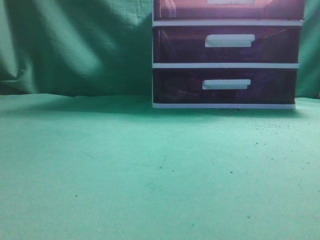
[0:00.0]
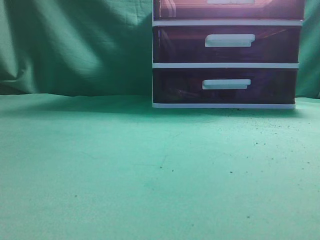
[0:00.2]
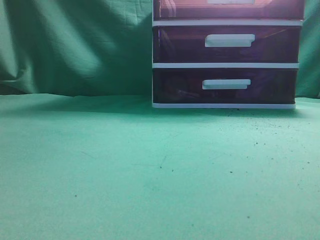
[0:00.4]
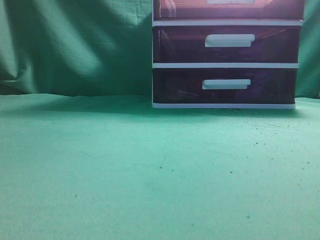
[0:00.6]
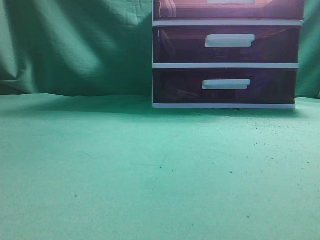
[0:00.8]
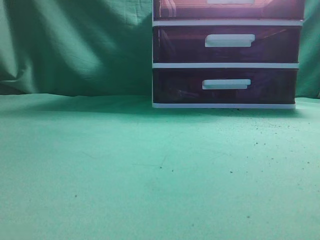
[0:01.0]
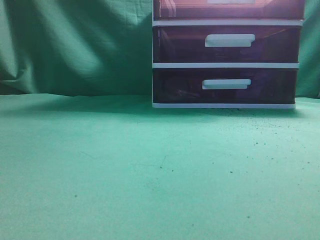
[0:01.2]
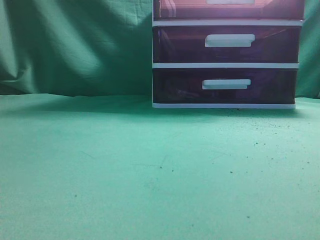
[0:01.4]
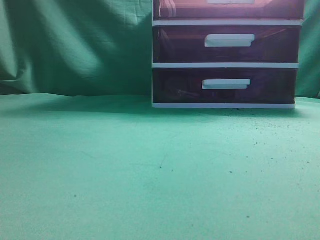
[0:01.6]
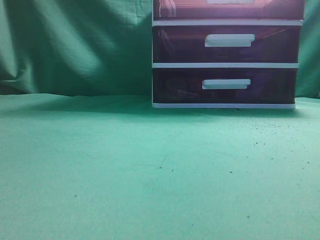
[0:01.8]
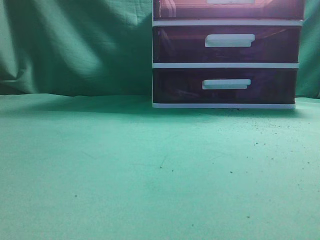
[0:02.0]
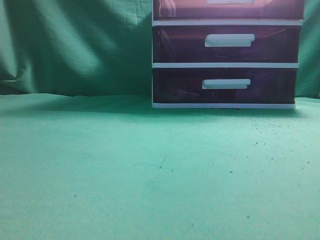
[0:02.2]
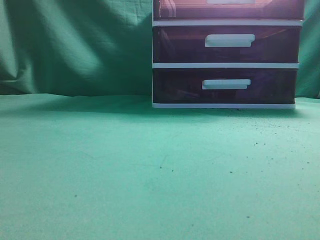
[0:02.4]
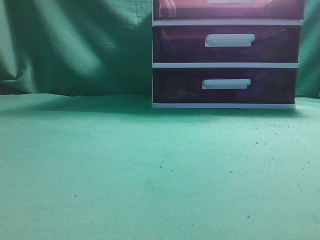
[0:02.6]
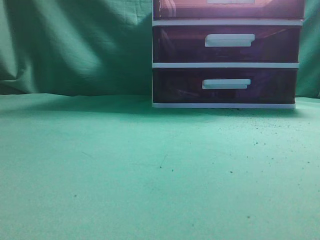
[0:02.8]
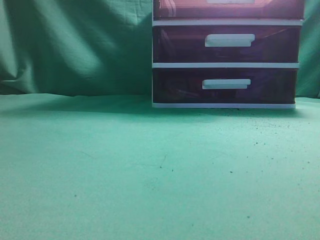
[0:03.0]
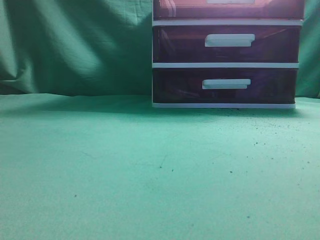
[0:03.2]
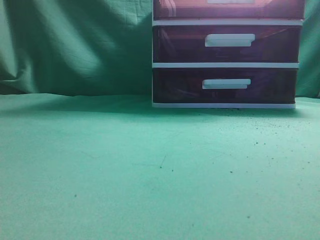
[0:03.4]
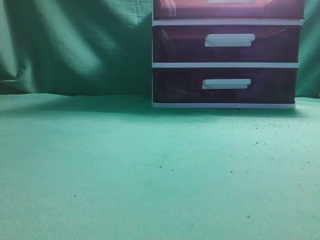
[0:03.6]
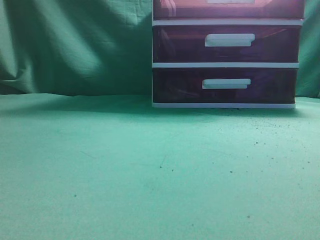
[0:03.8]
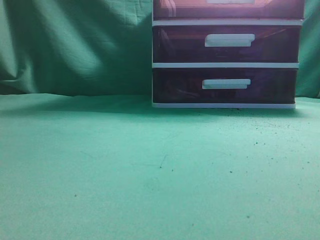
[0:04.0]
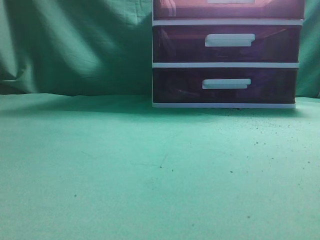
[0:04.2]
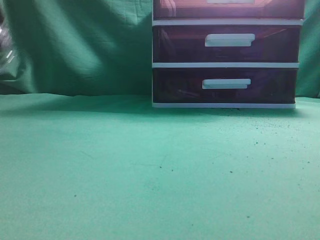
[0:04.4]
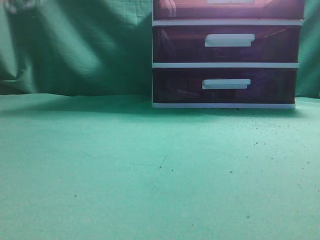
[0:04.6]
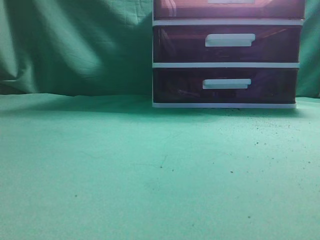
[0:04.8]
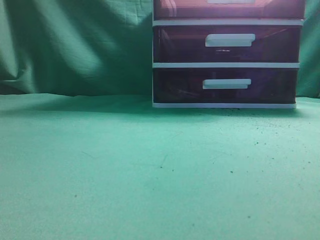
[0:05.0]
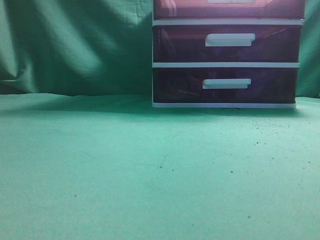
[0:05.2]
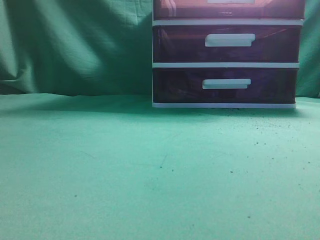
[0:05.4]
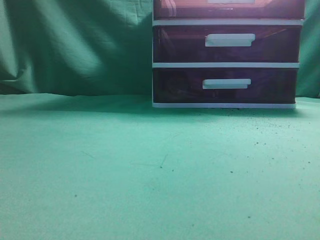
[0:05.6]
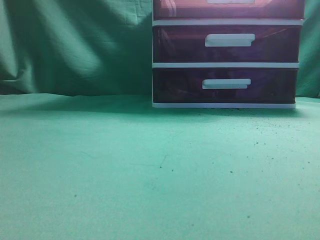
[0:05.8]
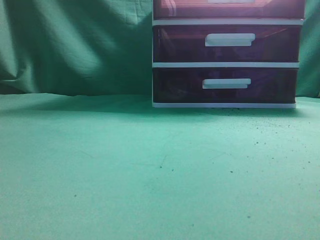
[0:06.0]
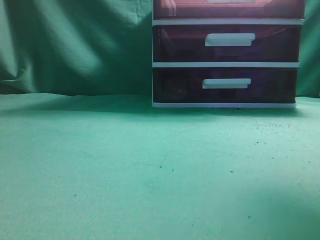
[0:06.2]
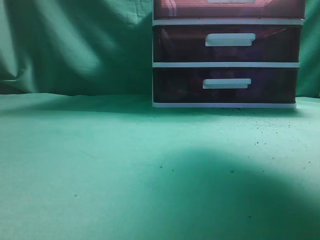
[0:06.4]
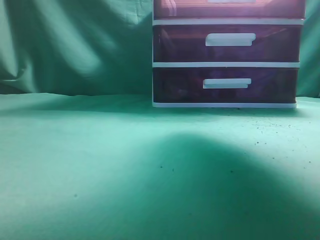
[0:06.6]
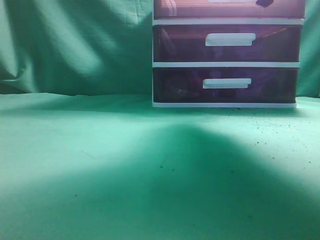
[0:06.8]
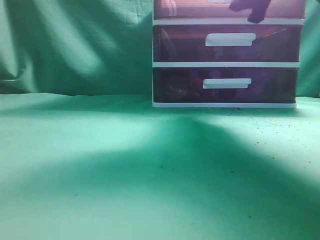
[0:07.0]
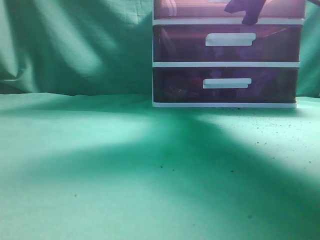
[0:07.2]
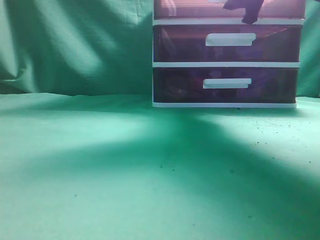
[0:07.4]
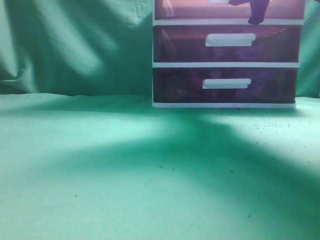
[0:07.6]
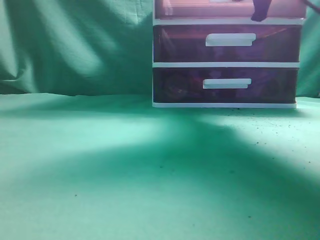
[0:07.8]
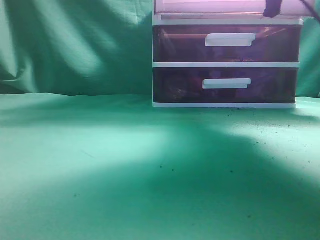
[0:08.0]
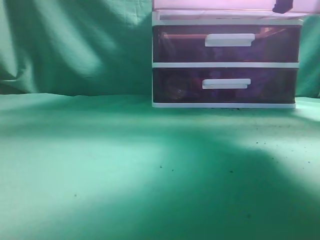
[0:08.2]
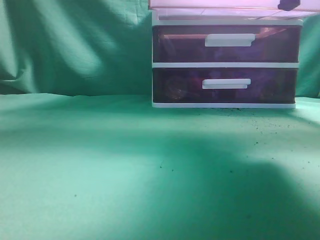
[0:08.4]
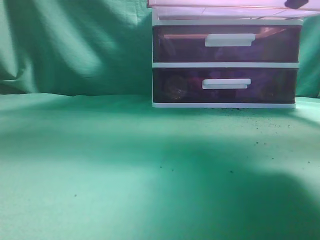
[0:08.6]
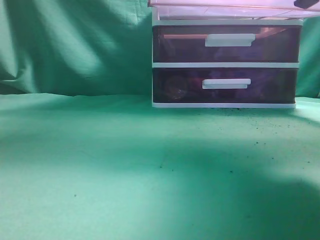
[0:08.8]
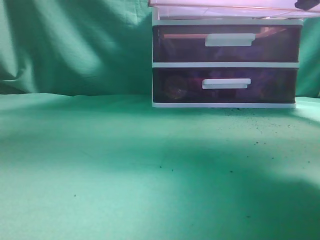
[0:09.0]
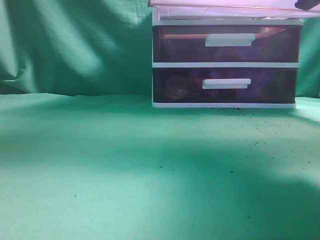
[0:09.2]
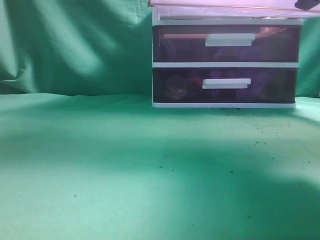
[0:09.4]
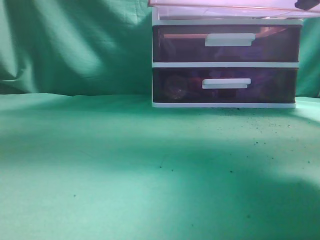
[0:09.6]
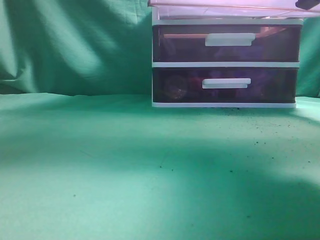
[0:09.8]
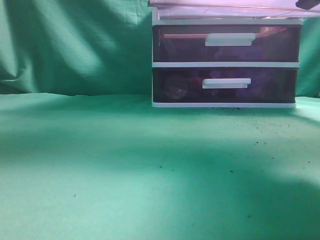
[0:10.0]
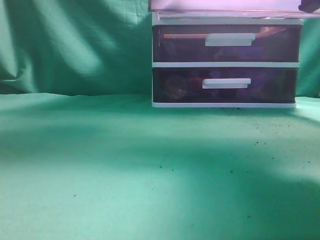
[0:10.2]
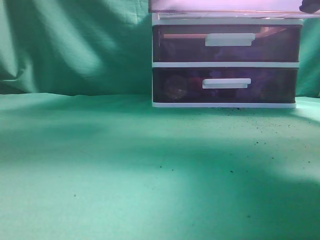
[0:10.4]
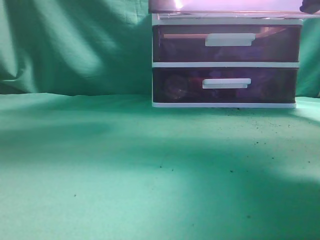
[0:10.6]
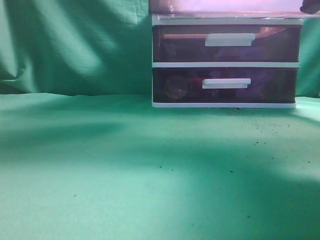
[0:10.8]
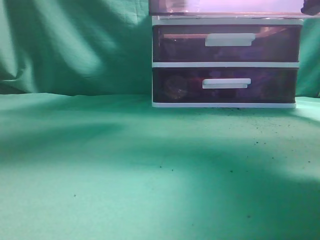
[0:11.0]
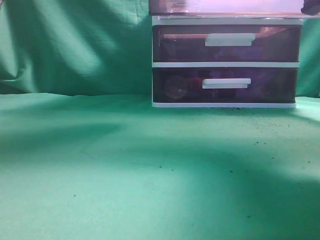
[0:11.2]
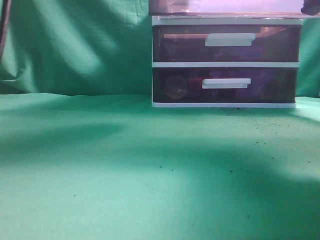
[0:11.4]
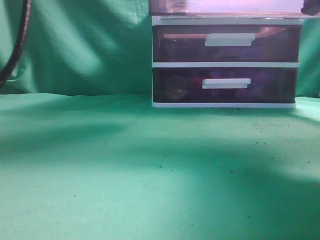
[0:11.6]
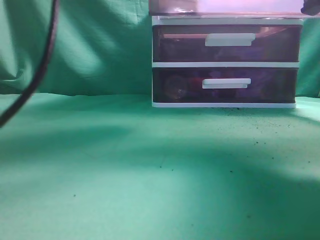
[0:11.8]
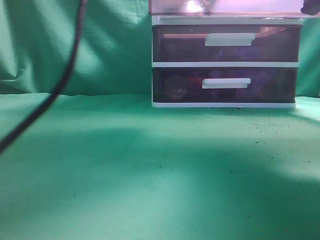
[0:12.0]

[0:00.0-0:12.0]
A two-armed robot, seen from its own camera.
Task of the whole recording: place the water bottle into the drawer.
Step, 0:00.0 to 0:09.2: Open the drawer.
0:06.0 to 0:07.6: The right gripper goes approximately 25 cm forward, and opens and closes again.
0:07.6 to 0:09.0: The right gripper shifts about 15 cm backward.
0:09.0 to 0:10.4: The left gripper is displaced forward and to the right by about 20 cm.
0:10.4 to 0:12.0: The left gripper goes some 10 cm to the right, and opens its fingers.

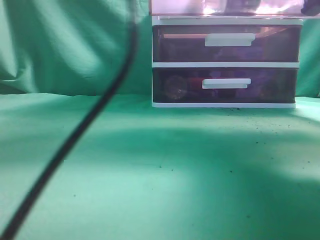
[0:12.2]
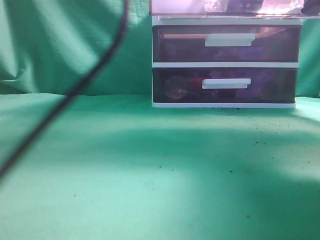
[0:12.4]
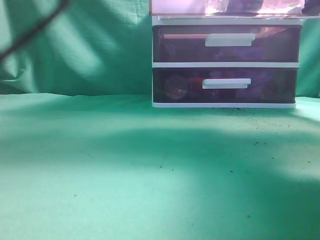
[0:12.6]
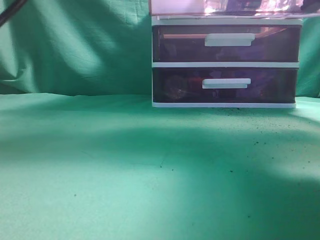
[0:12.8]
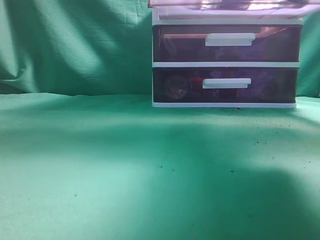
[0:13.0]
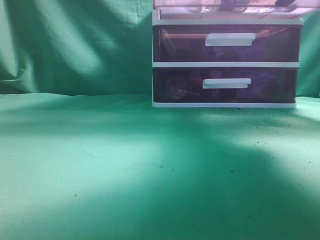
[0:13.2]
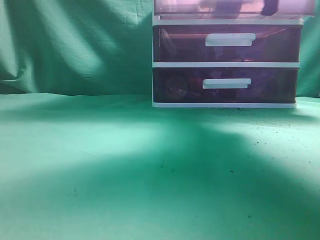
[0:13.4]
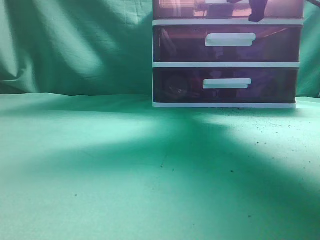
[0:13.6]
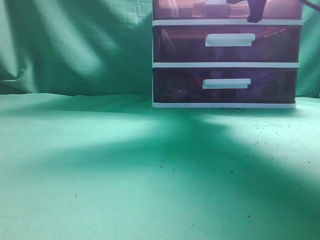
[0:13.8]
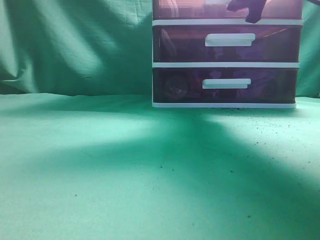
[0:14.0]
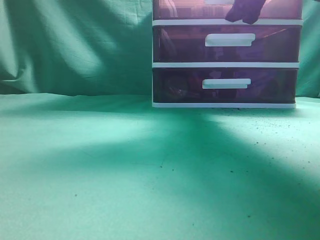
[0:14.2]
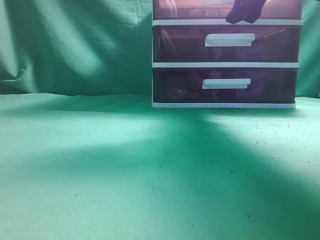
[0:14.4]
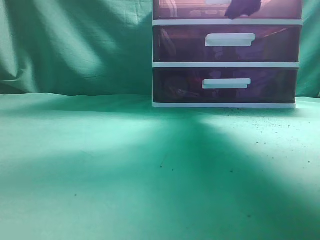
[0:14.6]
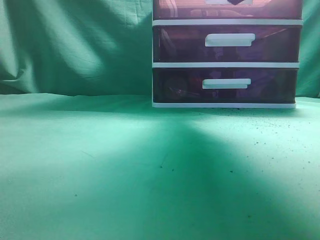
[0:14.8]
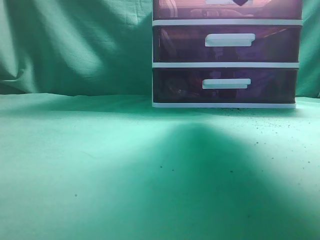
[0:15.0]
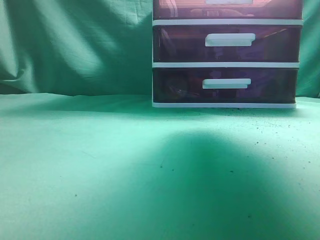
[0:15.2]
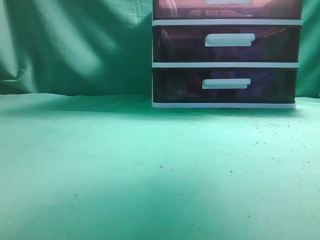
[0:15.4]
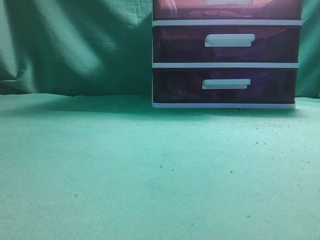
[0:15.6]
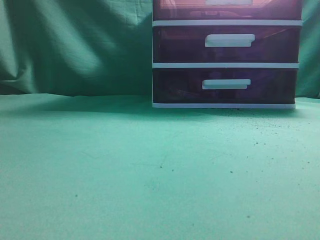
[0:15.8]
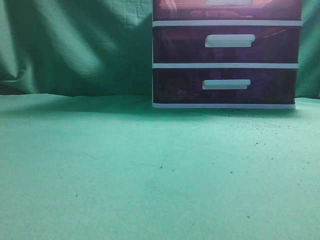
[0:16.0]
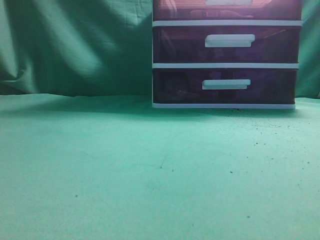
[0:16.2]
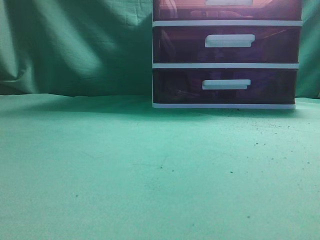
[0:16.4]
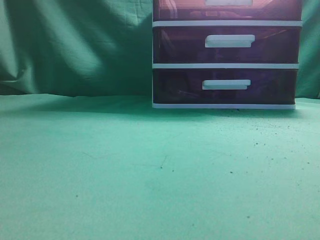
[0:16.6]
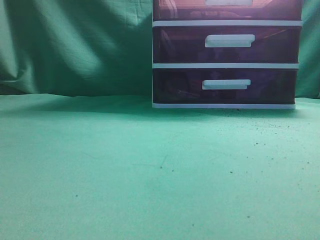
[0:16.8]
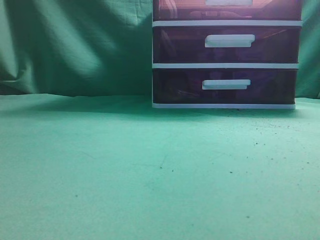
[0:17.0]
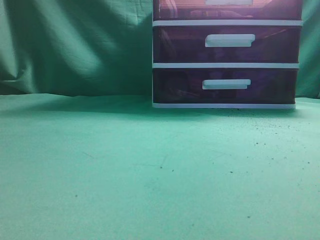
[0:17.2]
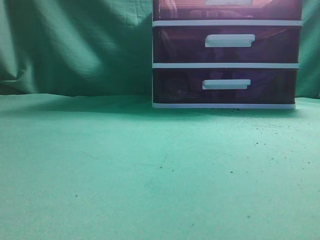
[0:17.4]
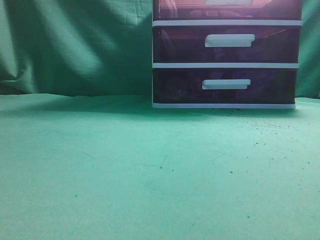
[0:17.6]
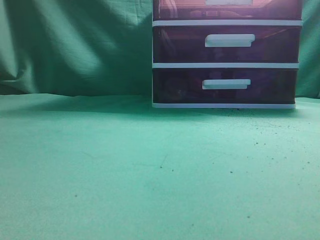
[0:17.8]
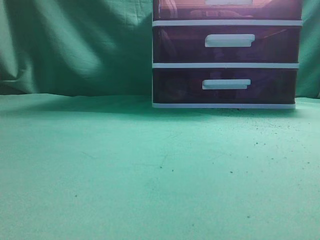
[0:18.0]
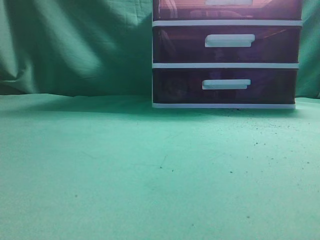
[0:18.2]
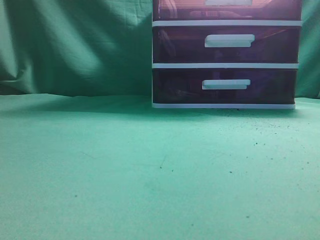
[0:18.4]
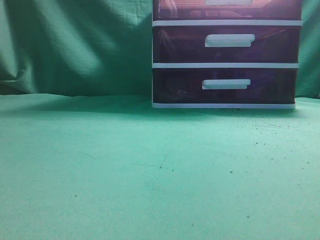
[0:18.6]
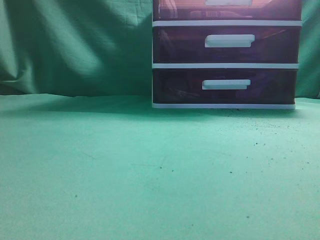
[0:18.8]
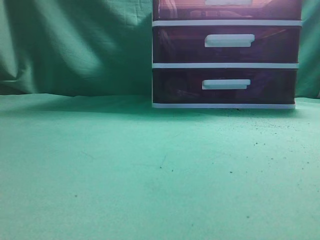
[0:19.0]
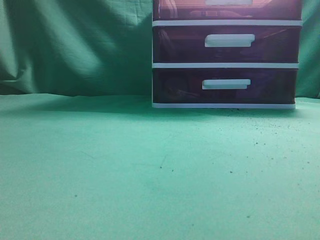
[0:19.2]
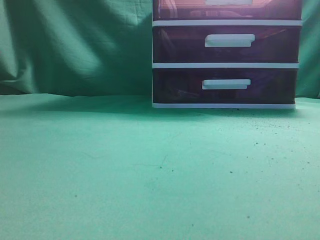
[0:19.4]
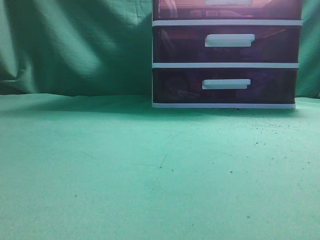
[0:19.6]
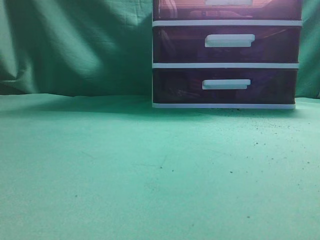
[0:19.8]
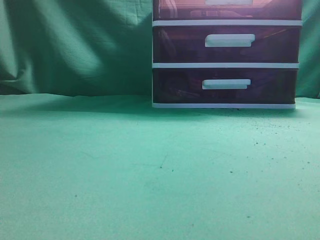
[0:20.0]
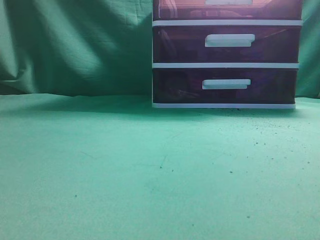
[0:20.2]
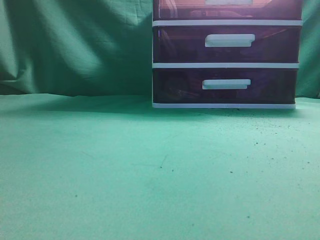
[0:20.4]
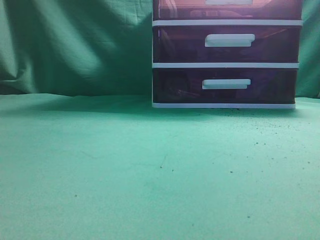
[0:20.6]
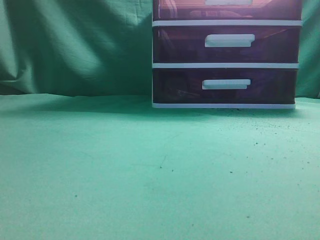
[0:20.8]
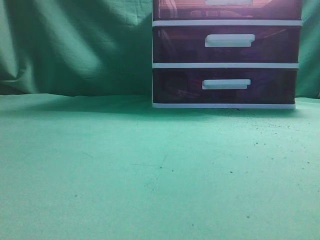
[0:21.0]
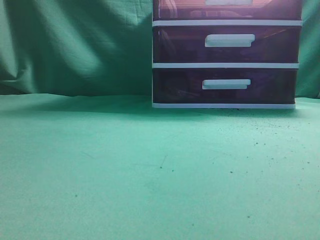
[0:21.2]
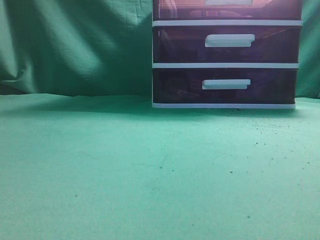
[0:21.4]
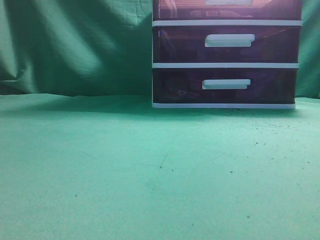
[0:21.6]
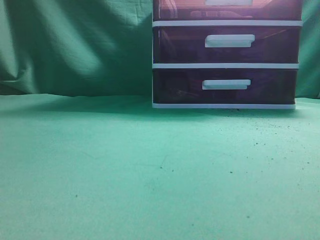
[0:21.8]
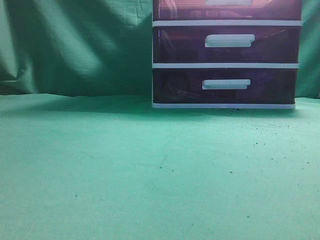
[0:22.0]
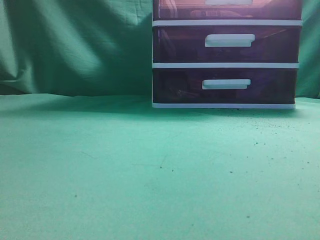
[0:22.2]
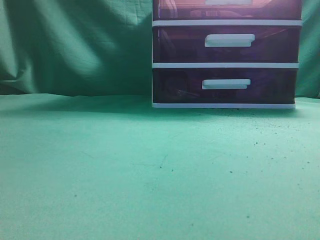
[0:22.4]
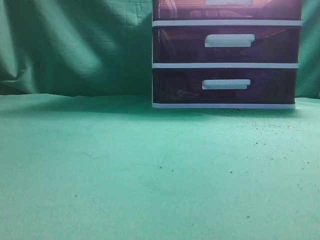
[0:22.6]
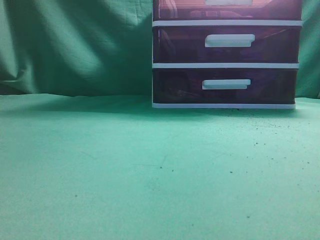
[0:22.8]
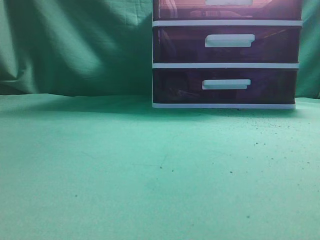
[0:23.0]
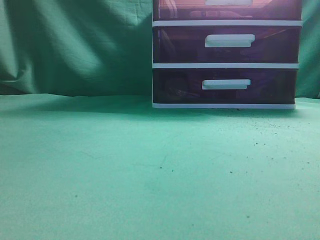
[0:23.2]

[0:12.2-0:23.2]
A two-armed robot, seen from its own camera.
Task of the whole recording: place the water bottle into the drawer.
Step, 0:13.0 to 0:15.2: Close the drawer.
0:12.2 to 0:13.8: The left gripper travels to the left and backward by some 30 cm, and closes up, while the right gripper heads forward, covering some 15 cm.
0:13.8 to 0:15.4: The right gripper shifts roughly 15 cm upward and backward, and opens.
0:15.4 to 0:17.0: The left gripper shifts some 15 cm backward and to the left. Meanwhile the right gripper shifts approximately 40 cm backward, and closes its fingers.
